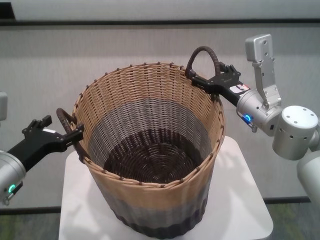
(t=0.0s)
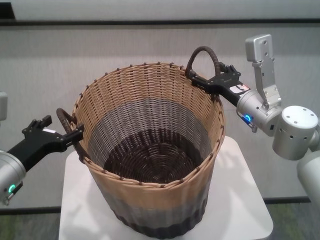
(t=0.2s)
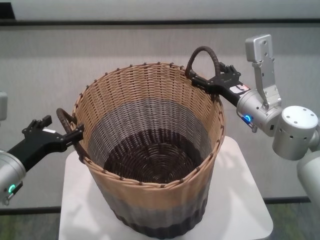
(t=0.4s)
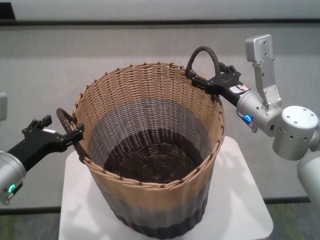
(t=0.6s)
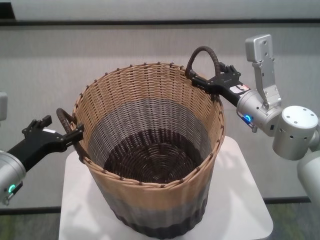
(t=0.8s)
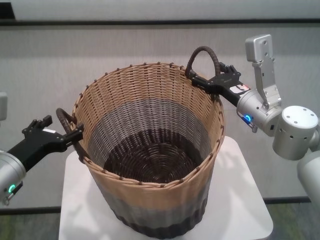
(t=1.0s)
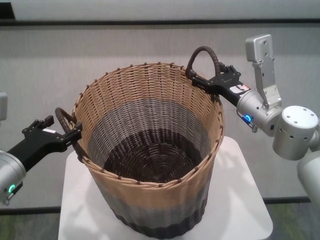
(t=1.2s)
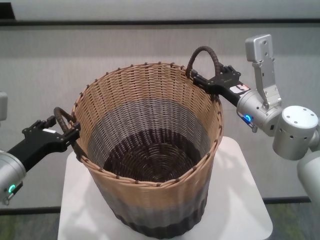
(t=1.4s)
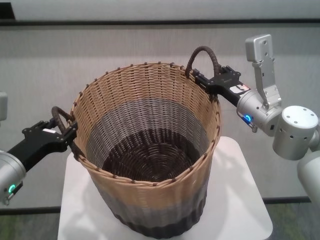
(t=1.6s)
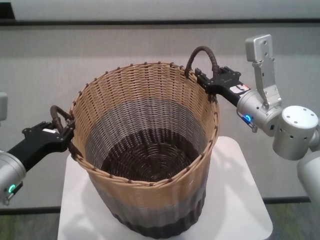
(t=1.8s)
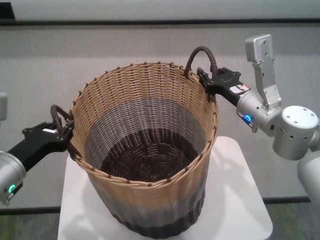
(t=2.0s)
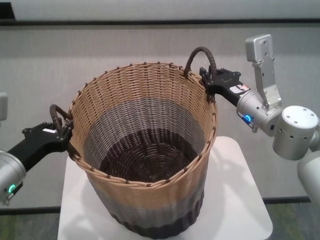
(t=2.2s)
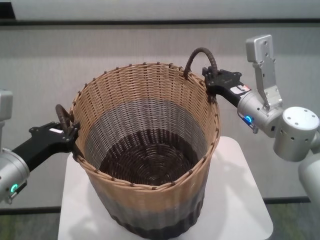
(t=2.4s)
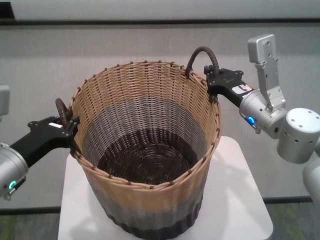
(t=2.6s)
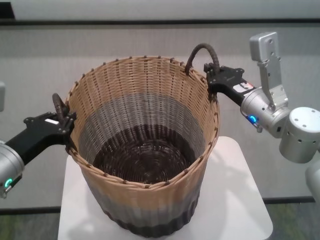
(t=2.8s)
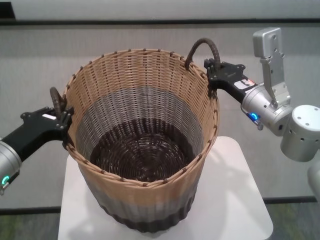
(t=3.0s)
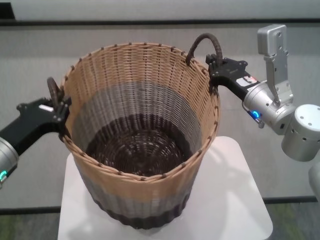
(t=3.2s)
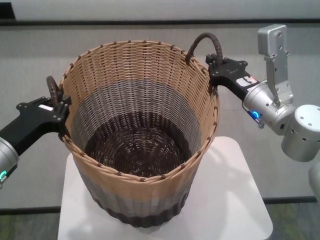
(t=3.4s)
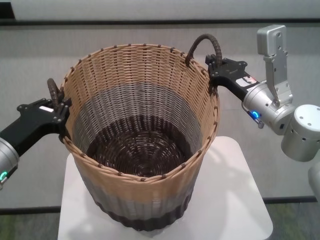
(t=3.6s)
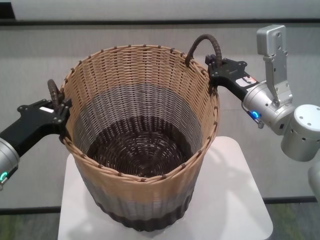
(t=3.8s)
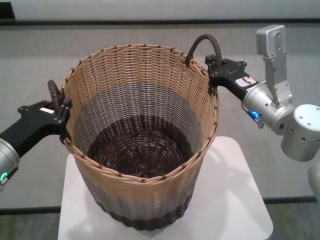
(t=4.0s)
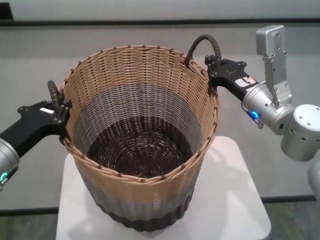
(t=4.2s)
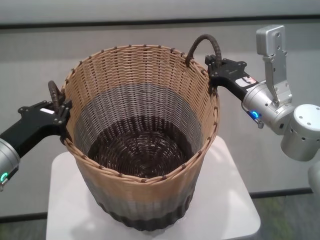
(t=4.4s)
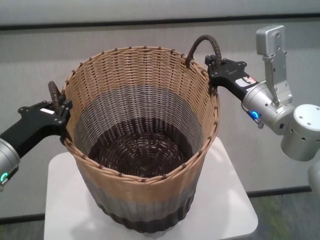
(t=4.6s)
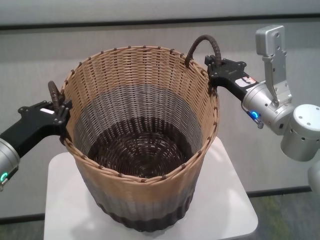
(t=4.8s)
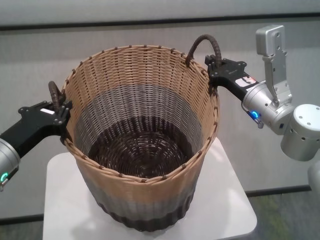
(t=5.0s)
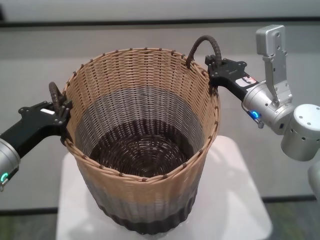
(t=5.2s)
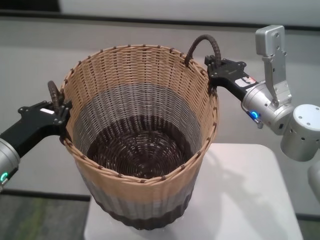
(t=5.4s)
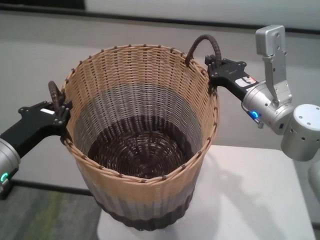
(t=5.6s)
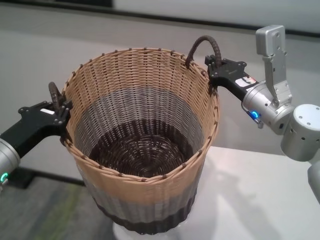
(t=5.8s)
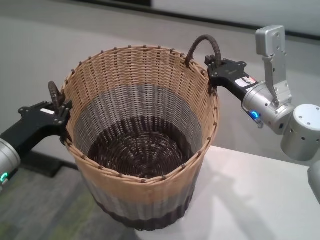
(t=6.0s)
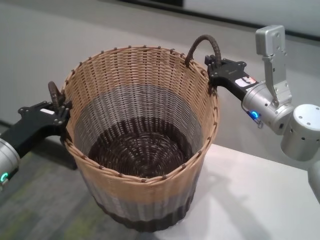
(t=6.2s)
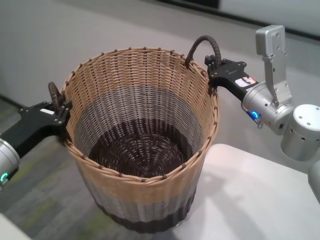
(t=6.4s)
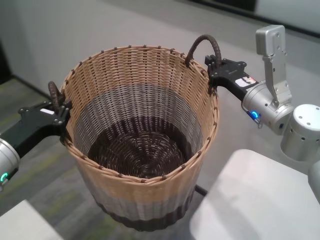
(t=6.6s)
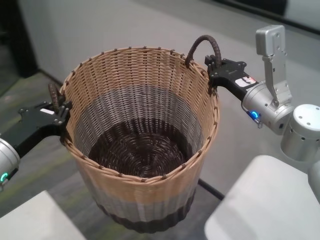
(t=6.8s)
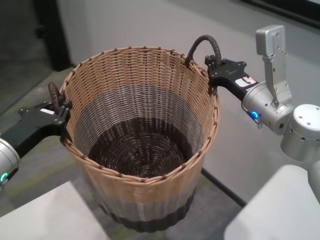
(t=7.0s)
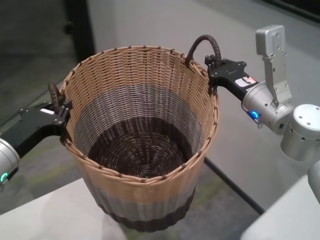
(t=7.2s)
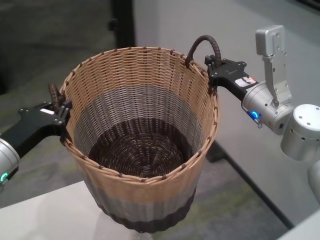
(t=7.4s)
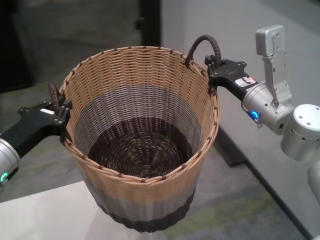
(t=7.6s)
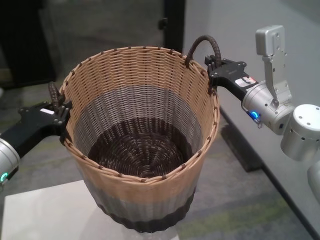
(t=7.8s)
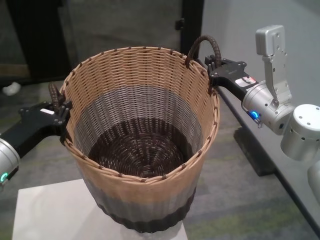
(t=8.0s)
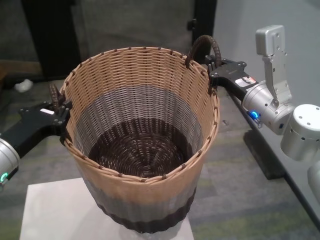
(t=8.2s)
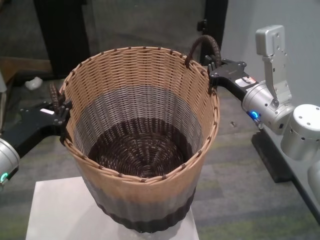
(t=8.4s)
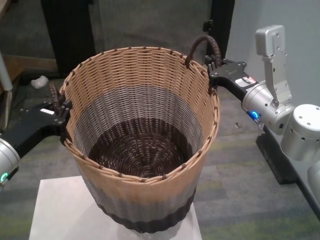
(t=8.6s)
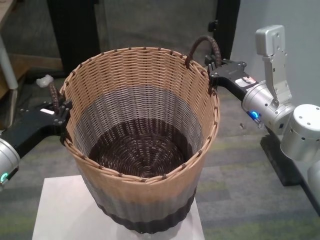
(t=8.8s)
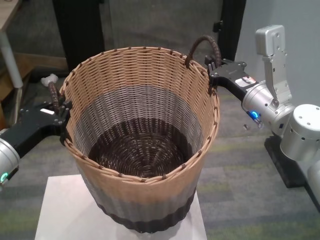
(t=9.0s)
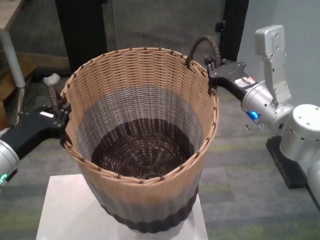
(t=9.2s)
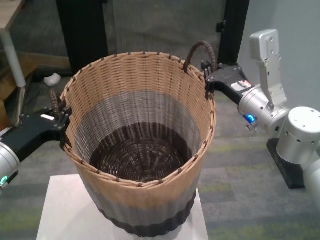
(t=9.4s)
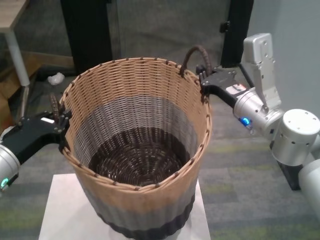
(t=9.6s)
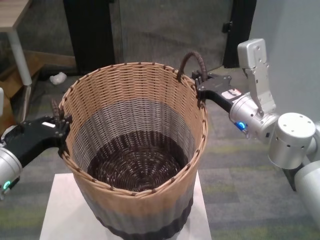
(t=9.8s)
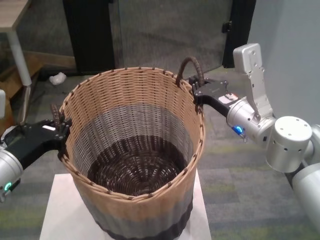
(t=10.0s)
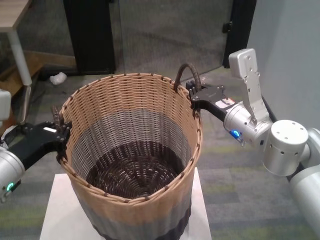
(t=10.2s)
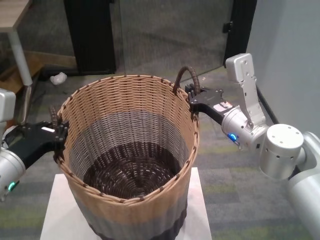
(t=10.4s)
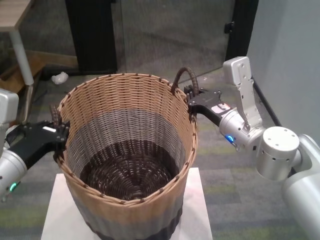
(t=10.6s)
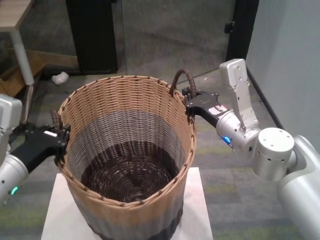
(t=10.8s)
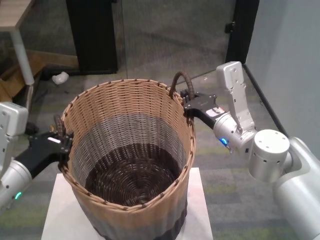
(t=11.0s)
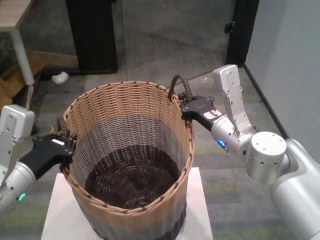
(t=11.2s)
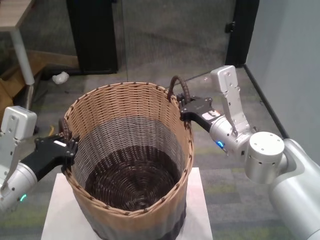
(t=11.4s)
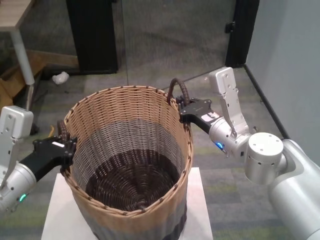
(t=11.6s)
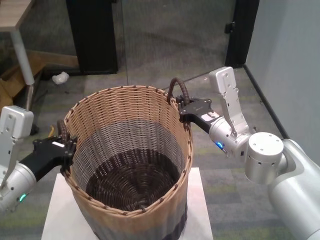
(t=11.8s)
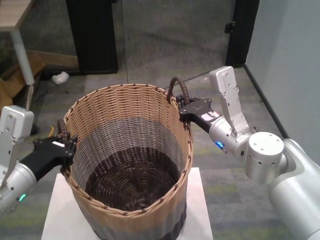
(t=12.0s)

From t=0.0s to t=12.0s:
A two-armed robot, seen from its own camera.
Task of the whole recording: carry the clothes basket in coordination with both hands.
Step, from t=0.0s to t=2.4s: Grasp the basket with both grippers.
Step, from t=2.6s to t=9.4s: Move the basket above the other table.

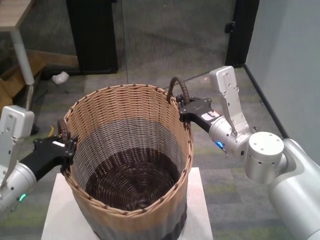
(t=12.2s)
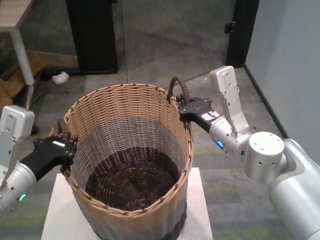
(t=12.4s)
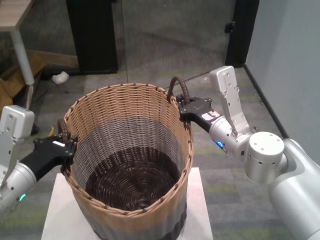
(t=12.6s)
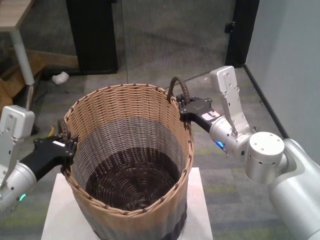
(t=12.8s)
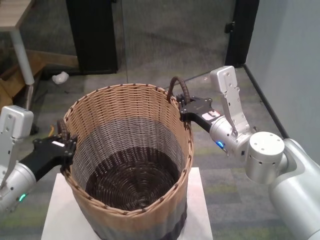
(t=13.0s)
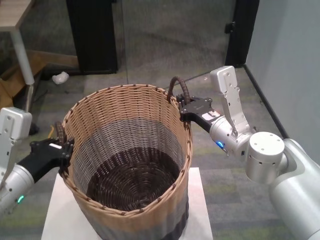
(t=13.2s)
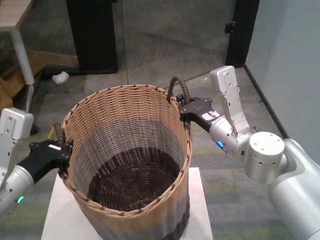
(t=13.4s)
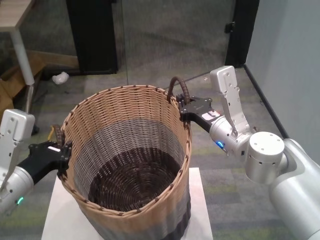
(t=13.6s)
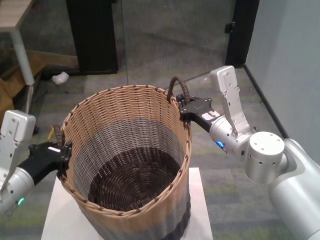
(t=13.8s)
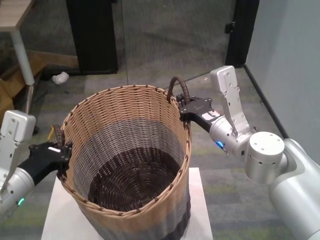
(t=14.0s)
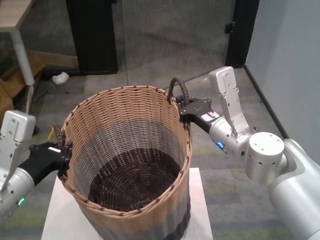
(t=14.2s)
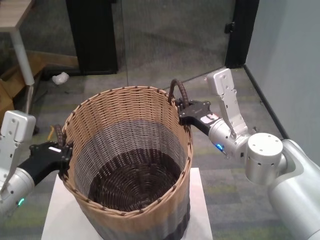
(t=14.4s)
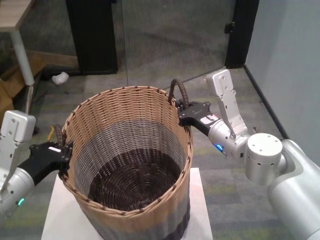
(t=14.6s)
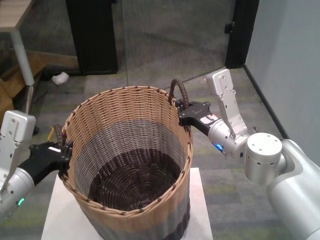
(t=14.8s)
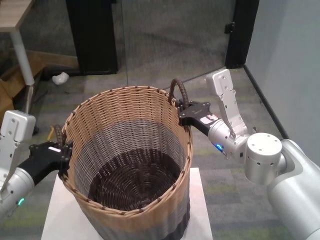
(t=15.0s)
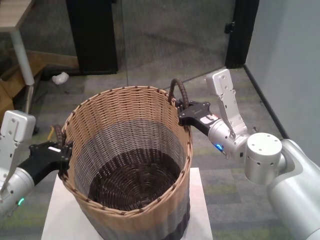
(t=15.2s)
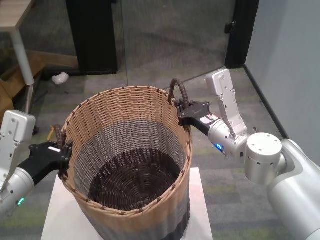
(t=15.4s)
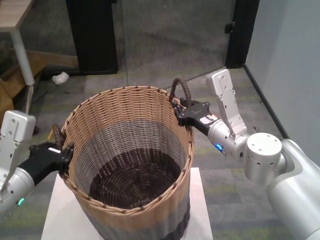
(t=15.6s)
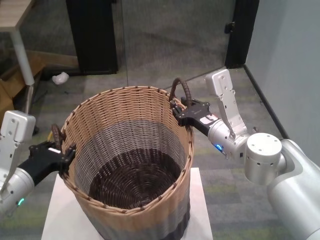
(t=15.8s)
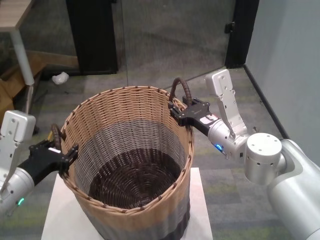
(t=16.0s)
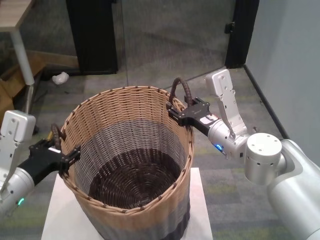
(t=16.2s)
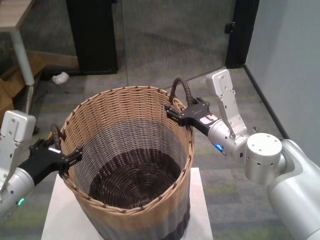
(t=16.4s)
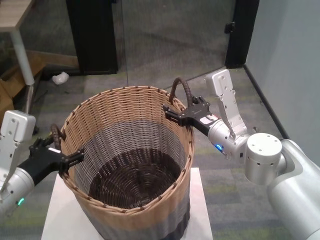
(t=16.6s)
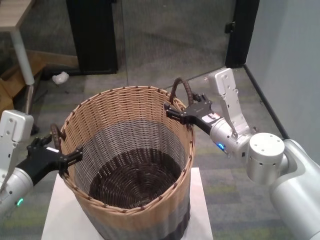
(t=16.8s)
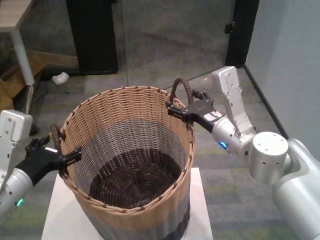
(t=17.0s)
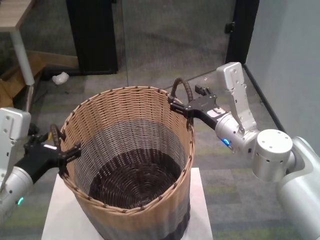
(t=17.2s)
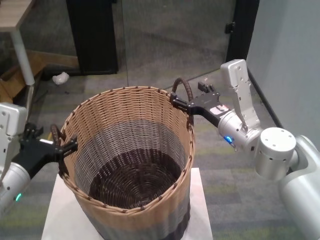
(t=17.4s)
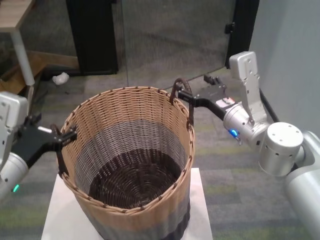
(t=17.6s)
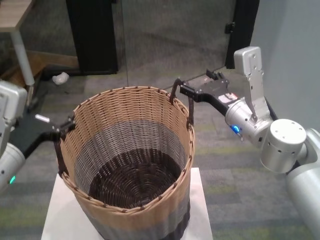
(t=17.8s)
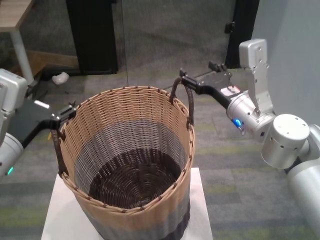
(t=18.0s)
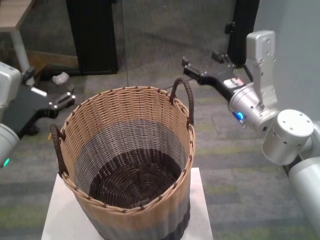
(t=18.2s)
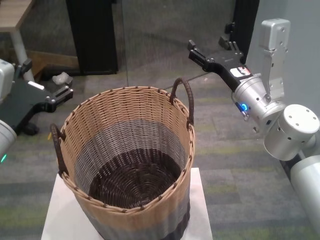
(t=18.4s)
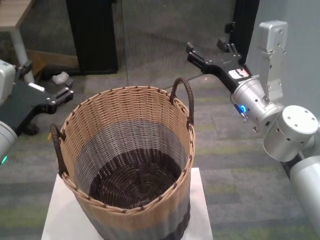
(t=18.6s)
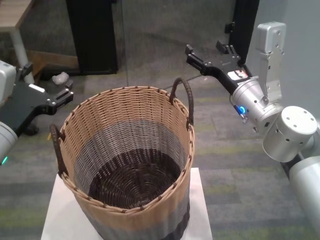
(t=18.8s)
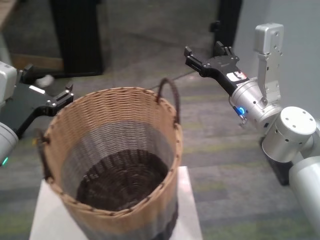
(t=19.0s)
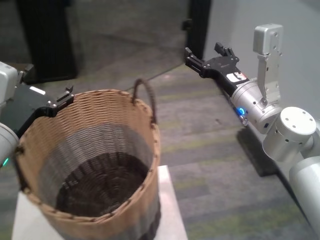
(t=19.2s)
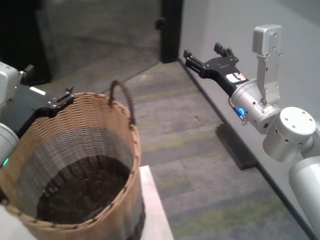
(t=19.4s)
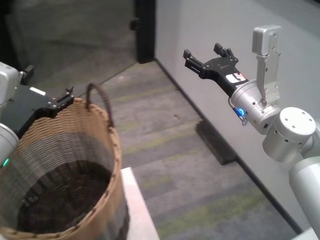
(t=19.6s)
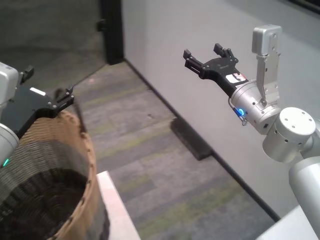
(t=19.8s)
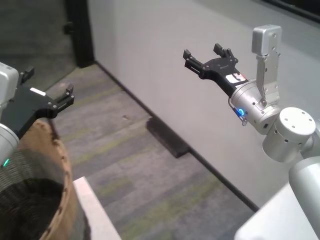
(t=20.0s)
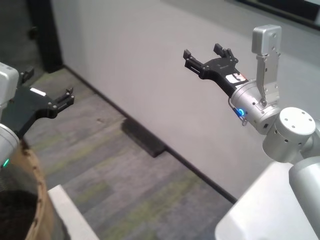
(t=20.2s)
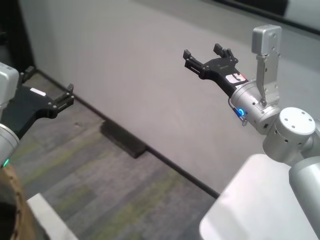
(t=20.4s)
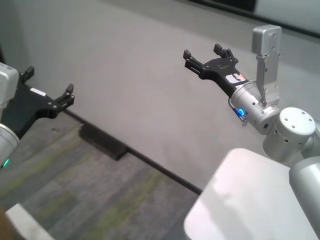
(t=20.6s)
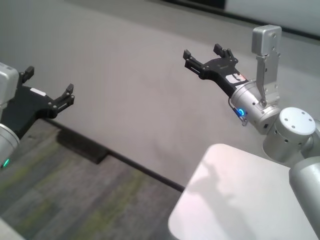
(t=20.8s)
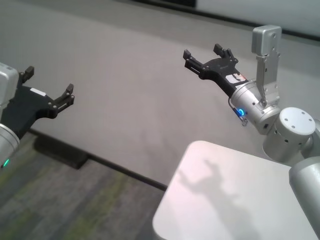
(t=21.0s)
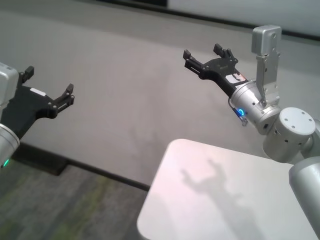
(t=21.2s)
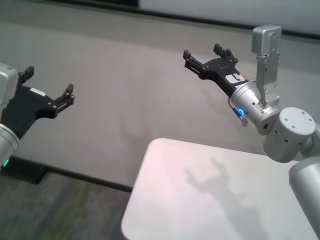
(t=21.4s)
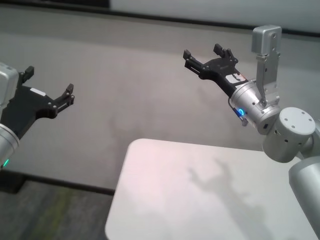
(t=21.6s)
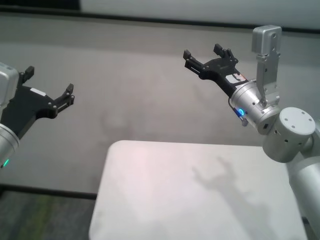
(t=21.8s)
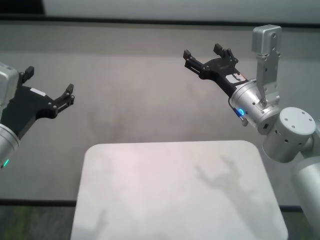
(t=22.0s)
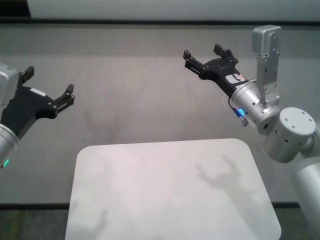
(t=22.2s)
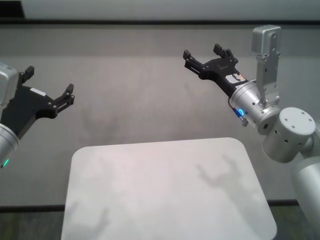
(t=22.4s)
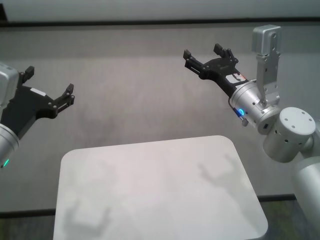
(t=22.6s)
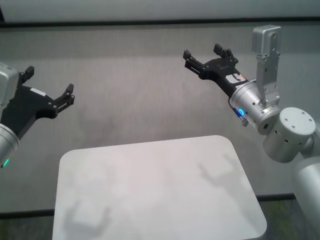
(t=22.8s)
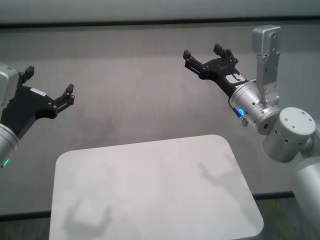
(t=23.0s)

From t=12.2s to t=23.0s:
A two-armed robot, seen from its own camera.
Task of the whole recording: carry the clothes basket in coordination with both hands.
Step, from t=12.2s to t=16.8s: Place the basket on the table with both grippers.
